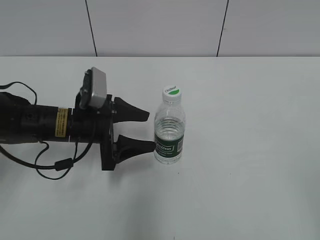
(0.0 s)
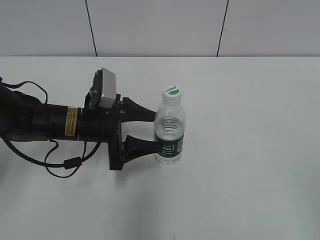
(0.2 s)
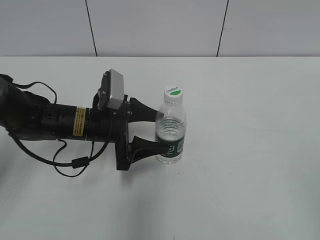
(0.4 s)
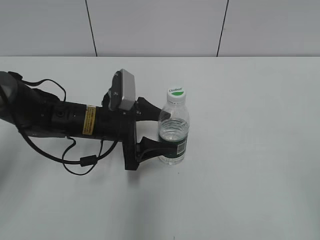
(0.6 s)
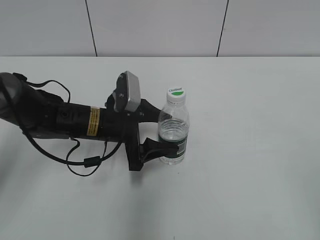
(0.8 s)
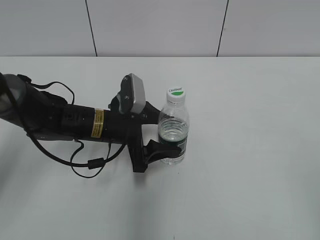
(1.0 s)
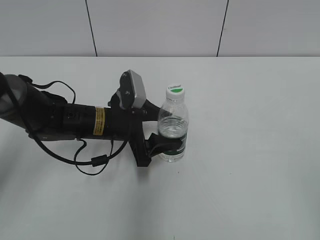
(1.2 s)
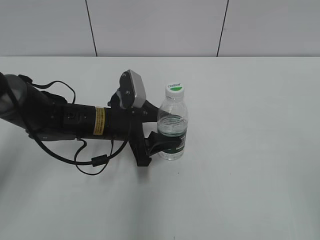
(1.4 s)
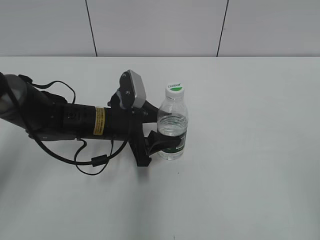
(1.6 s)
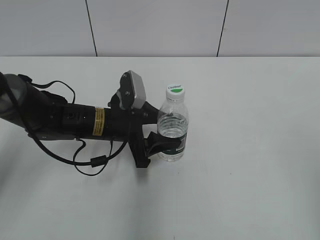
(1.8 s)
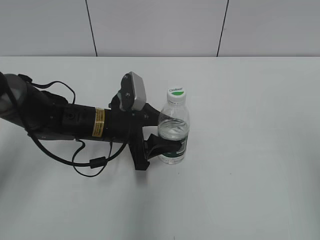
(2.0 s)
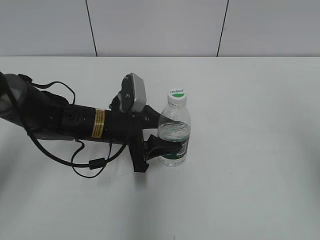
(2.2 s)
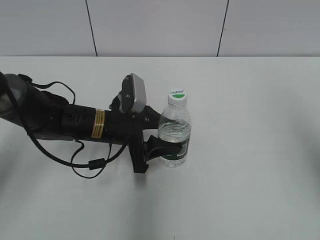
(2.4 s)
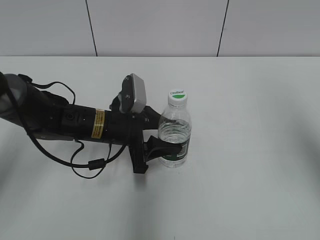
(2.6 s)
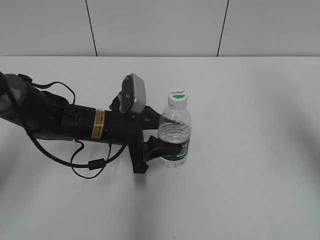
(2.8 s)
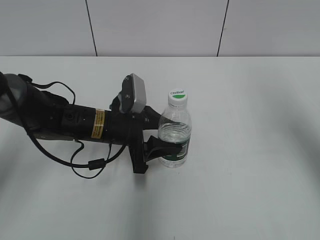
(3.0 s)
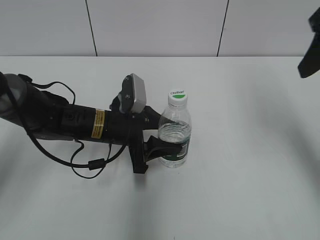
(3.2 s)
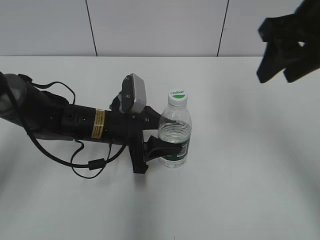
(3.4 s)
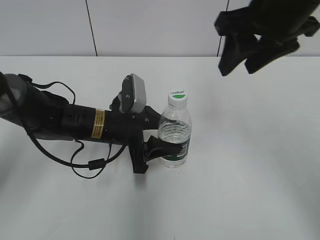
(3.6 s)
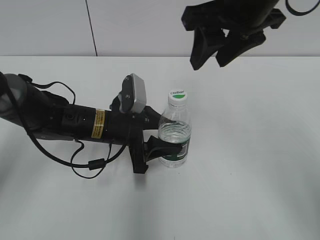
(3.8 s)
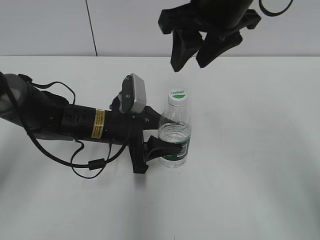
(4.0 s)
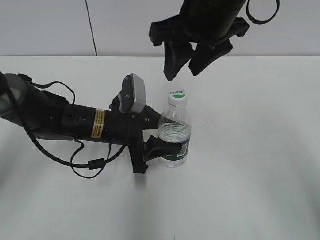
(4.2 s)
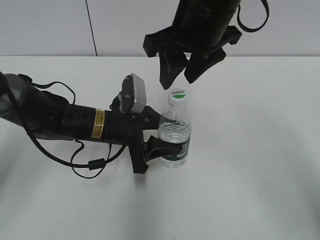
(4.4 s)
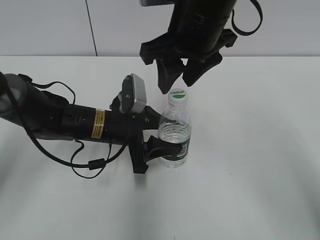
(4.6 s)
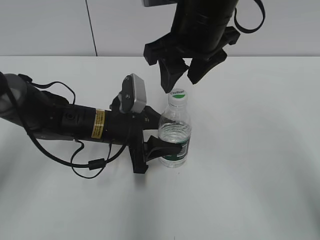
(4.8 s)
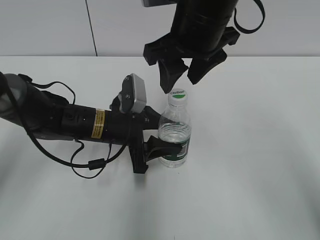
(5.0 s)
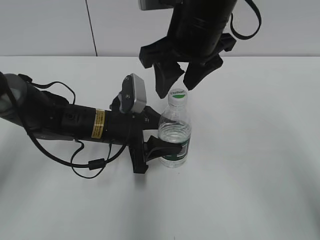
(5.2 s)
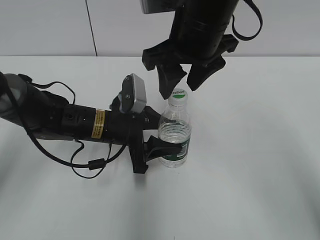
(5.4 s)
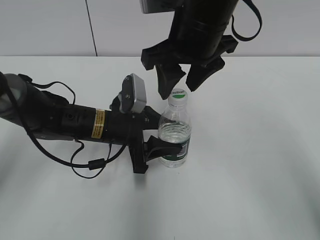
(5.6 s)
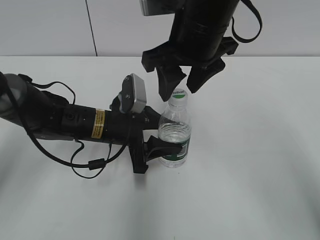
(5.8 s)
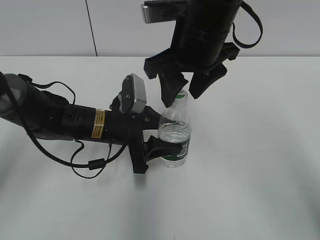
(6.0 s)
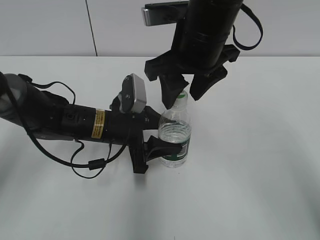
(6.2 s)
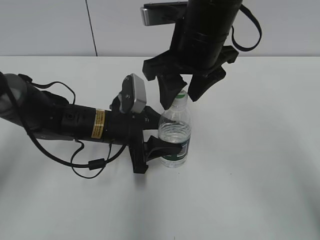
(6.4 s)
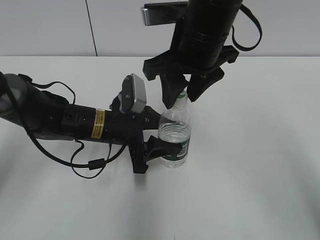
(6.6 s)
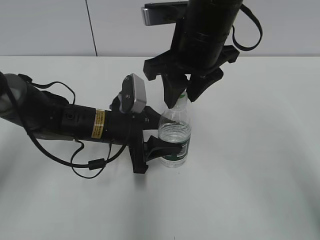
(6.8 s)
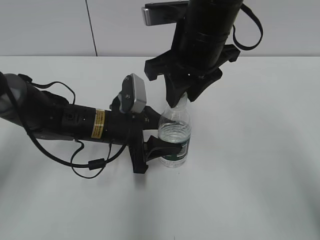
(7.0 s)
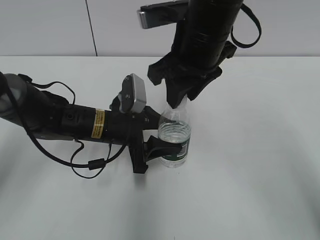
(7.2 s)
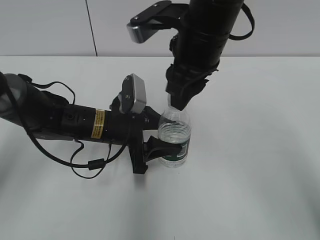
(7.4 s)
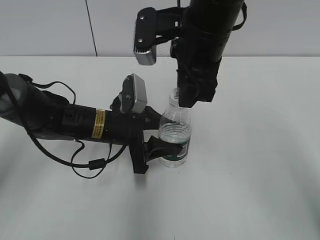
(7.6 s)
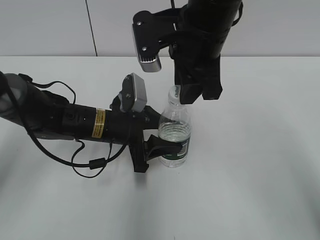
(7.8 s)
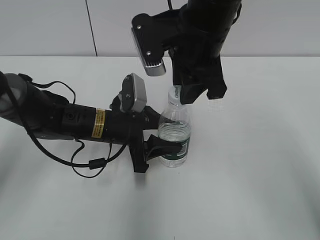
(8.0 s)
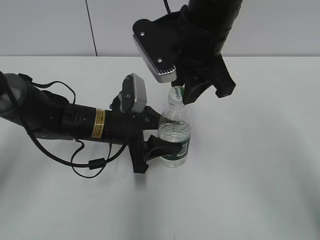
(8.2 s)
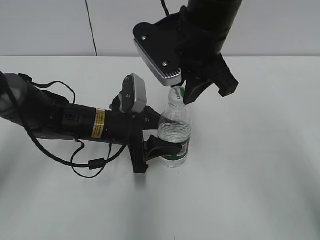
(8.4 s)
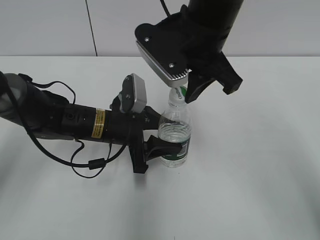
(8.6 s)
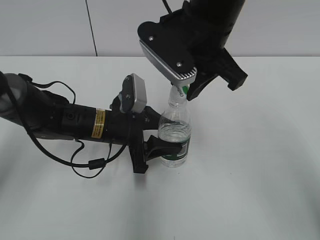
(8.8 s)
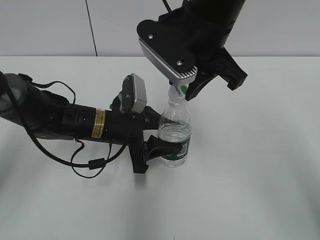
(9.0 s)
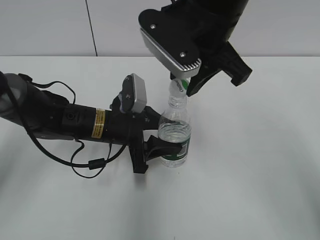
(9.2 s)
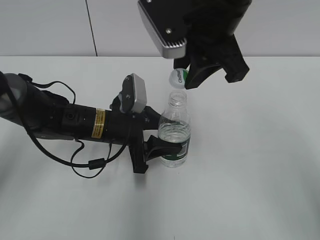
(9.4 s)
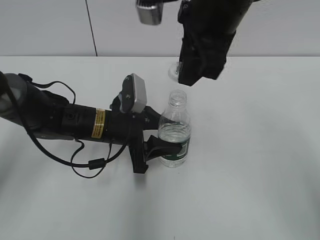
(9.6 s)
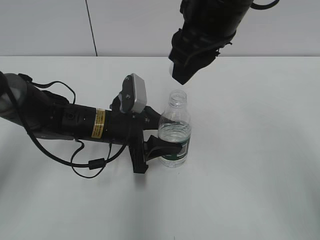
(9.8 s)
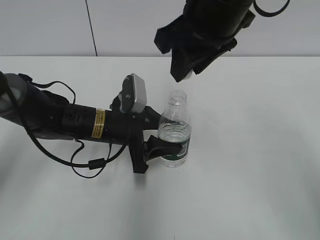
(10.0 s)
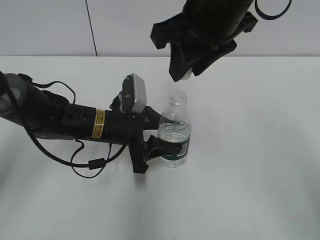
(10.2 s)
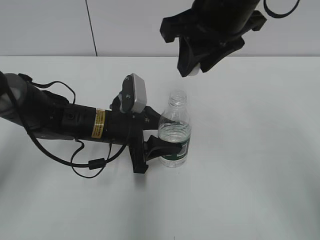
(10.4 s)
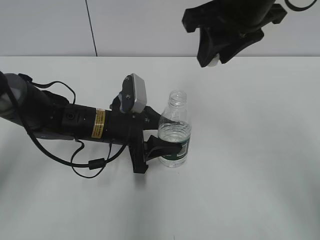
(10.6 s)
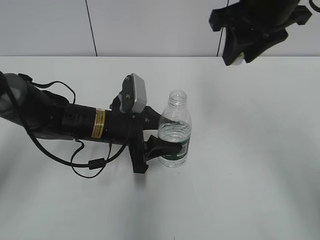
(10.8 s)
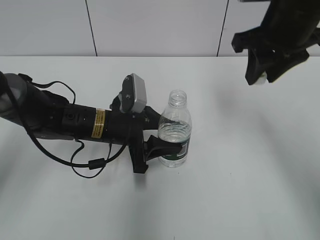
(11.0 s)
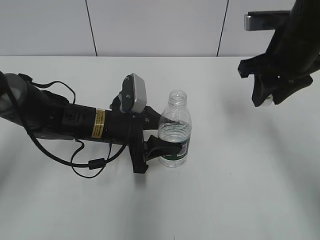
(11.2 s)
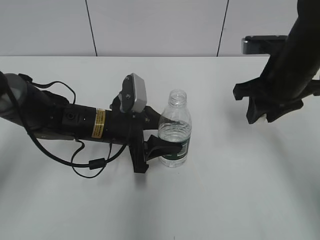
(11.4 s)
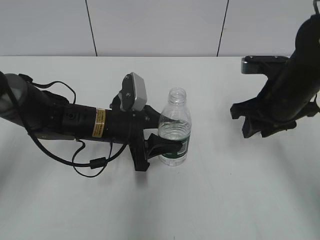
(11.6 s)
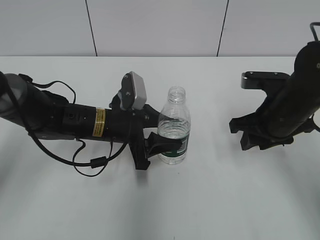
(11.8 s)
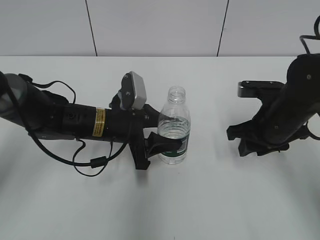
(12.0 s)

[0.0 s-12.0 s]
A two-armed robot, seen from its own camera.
Step, 0.0 to 2.4 s: Grasp the bottle and move it to the center of the table with the left gripper.
Step, 2.6 to 9.4 s: Unscrew the bottle cap with the right gripper while holding the bottle with the left gripper.
0.0 to 1.6 s: The left gripper ends up roughly 5 cm from where it was, and closes up.
1.6 to 3.0 s: The right gripper shifts roughly 25 cm forward, and closes its fingers.
3.0 to 4.4 s: The right gripper heads to the left, covering some 20 cm.
4.4 to 6.0 s: The grippers make only small movements.
6.0 to 7.6 s: The right gripper closes its fingers.
10.4 to 12.0 s: The right gripper heads downward and to the right, covering roughly 25 cm.

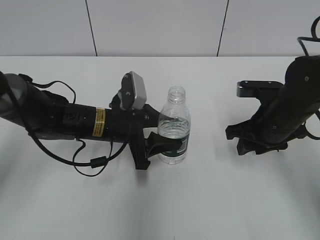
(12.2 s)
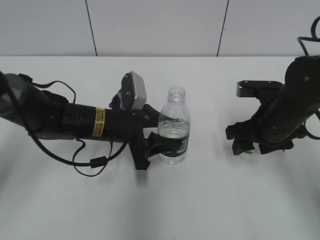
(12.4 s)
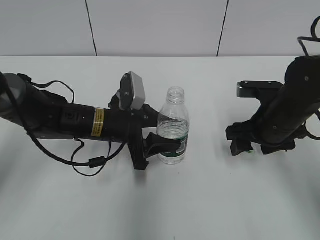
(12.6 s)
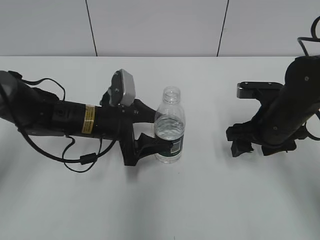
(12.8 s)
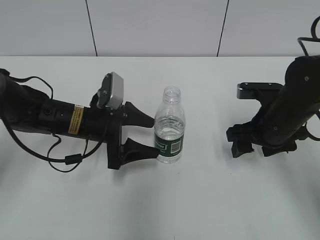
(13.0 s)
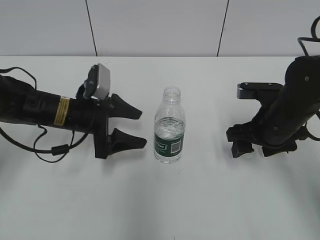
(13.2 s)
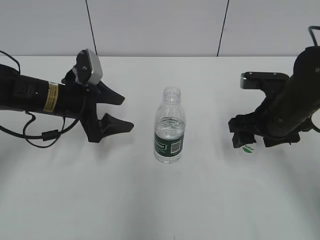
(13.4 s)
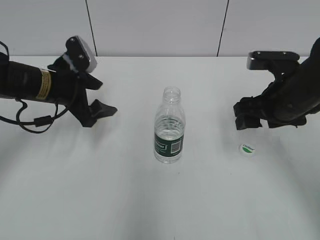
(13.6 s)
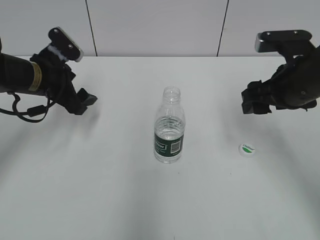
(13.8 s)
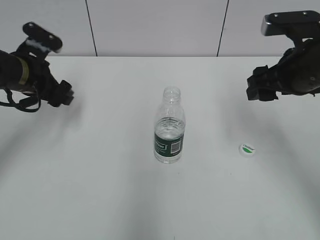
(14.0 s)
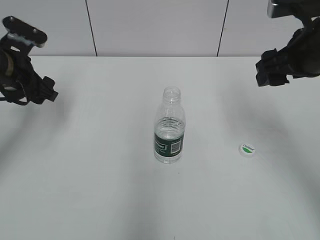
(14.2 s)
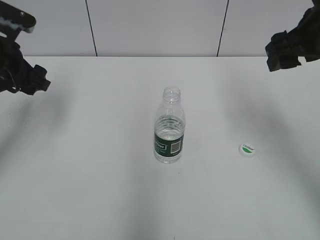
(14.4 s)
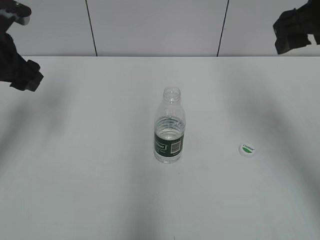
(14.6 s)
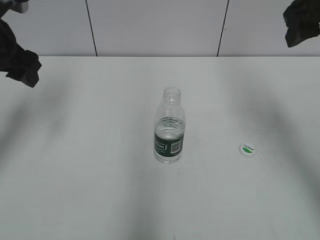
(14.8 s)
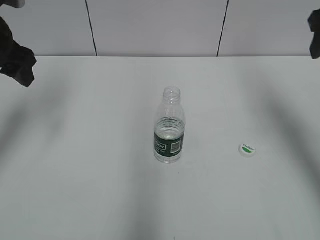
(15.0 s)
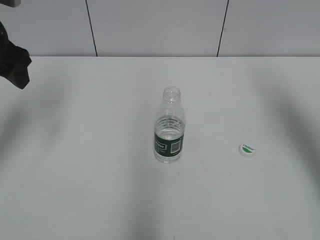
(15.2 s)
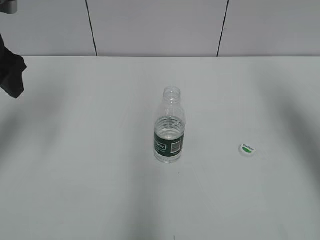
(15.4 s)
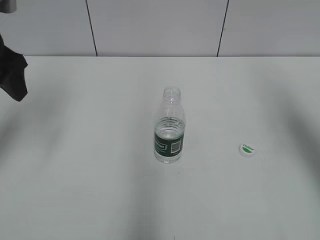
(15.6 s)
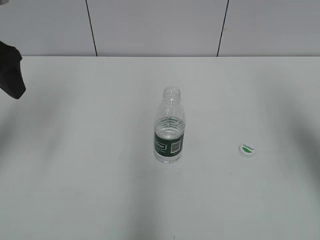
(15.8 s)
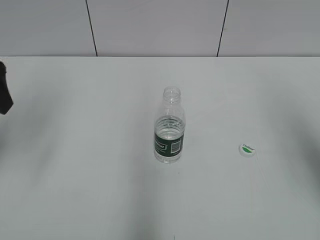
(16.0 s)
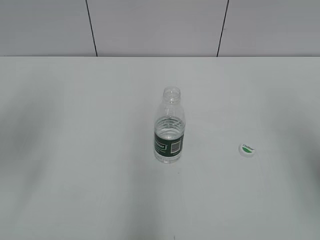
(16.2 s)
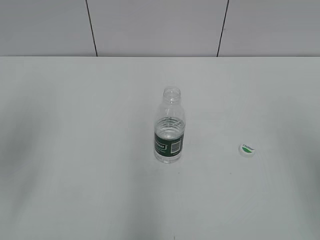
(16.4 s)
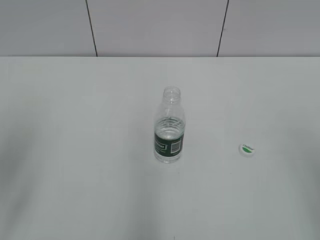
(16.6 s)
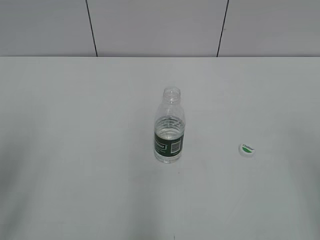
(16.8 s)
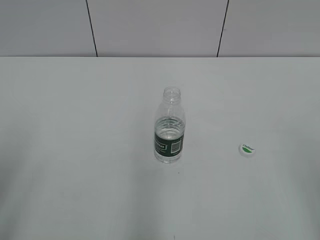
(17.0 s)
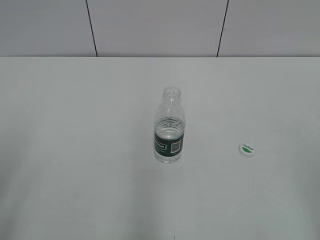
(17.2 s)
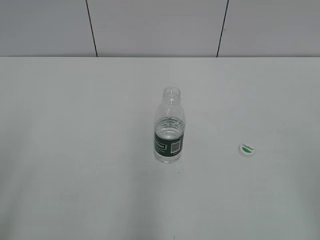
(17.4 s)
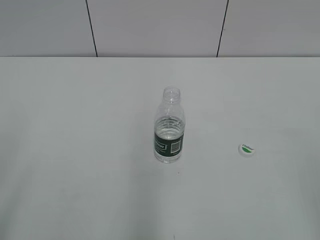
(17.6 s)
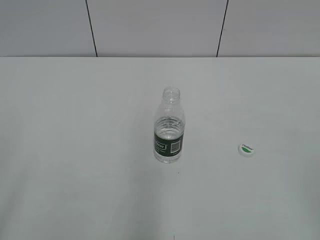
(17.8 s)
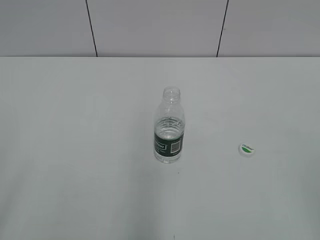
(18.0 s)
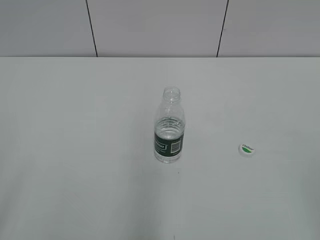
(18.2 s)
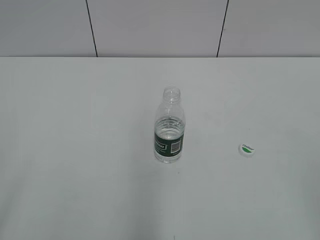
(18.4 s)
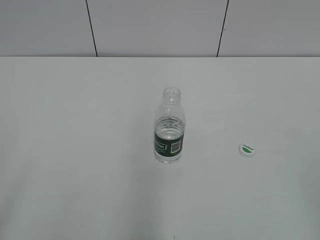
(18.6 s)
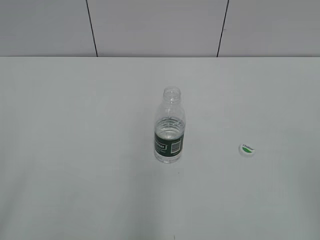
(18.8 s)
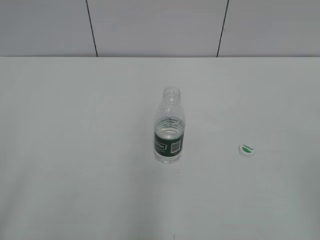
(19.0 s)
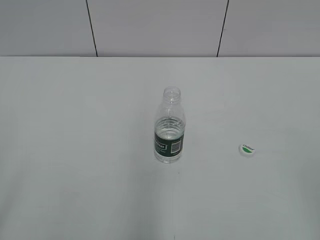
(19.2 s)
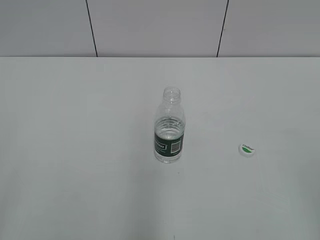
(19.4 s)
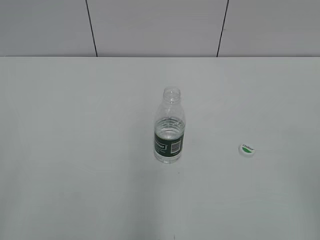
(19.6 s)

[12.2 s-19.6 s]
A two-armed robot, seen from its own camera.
Step, 12.8 to 13.2 s: Place the bottle on the table with the left gripper.
12.2 to 13.6 s: The left gripper heads to the left and upward, covering some 10 cm, and opens up. The right gripper moves upward, some 5 cm, and opens up.
13.6 to 15.2 s: The left gripper heads upward and to the left, covering roughly 15 cm; the right gripper heads upward and to the right, covering roughly 15 cm.
15.2 to 16.6 s: Both grippers move backward, approximately 20 cm.

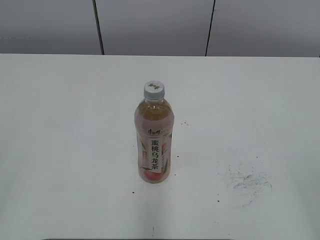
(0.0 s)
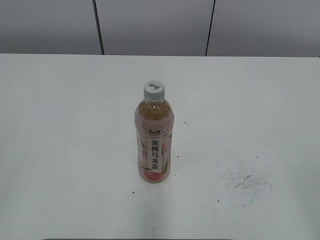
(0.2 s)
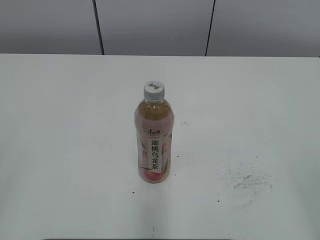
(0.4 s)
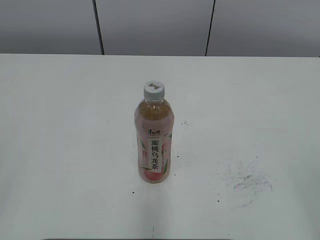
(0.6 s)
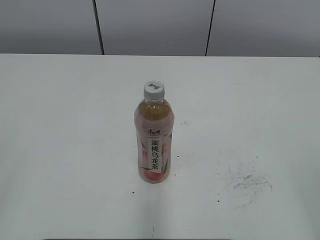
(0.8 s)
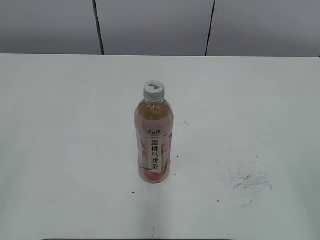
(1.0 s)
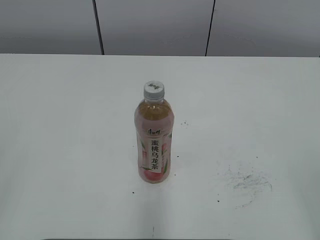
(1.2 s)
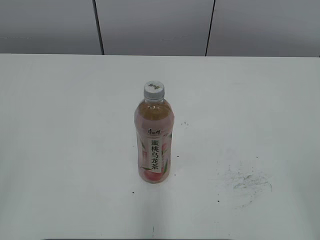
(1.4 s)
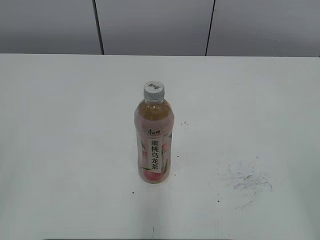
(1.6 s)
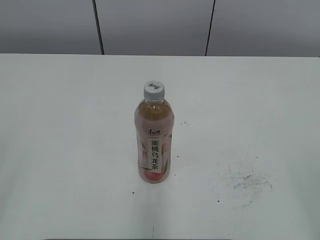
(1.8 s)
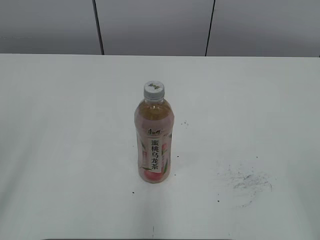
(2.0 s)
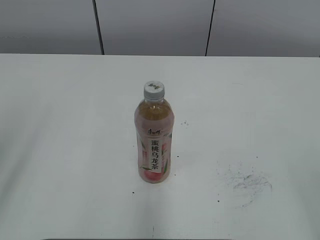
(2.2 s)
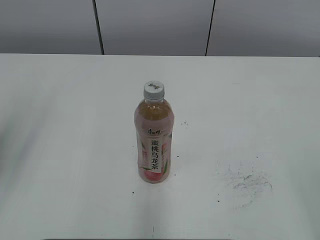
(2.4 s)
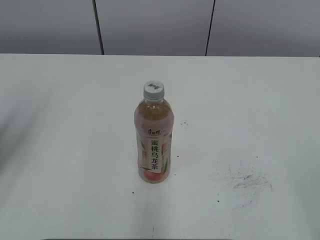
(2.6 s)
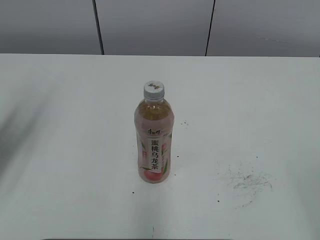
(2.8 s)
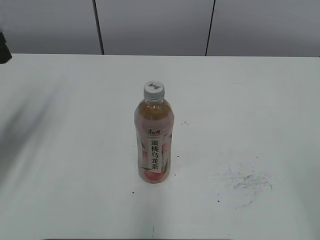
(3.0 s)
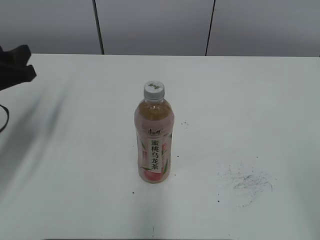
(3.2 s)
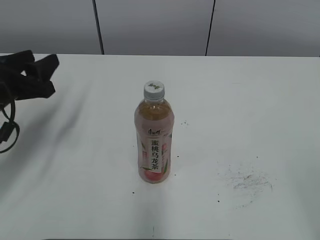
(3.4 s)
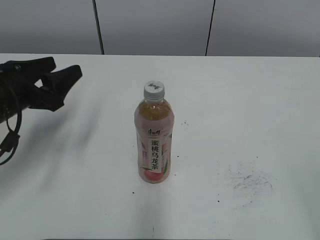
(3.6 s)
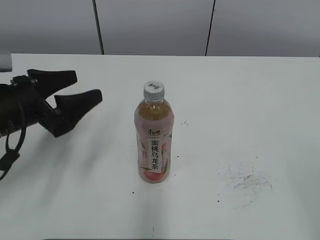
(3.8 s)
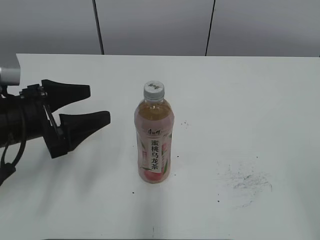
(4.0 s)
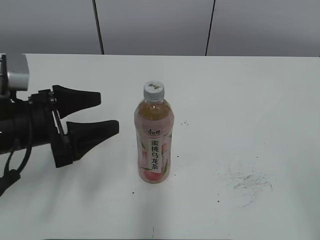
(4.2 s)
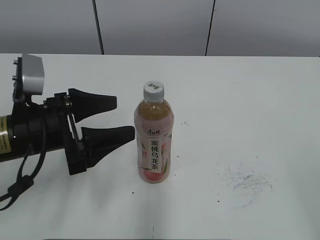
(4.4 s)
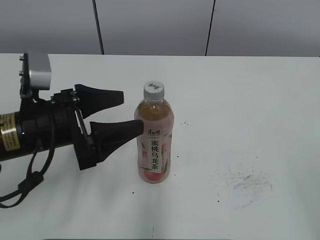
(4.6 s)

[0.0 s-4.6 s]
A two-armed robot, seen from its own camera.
1.6 to 3.0 s: The left gripper travels forward by about 25 cm.
3.0 to 4.6 s: The left gripper goes approximately 15 cm to the right and downward, and opens its fingers.
